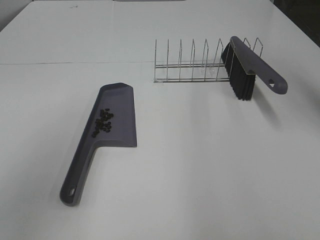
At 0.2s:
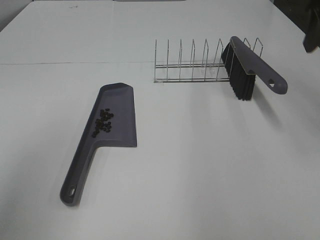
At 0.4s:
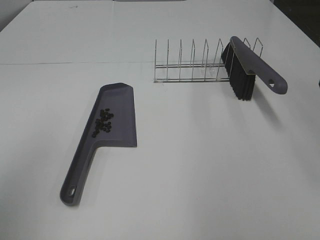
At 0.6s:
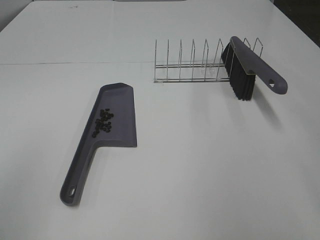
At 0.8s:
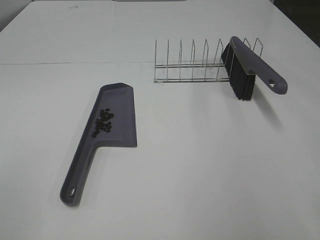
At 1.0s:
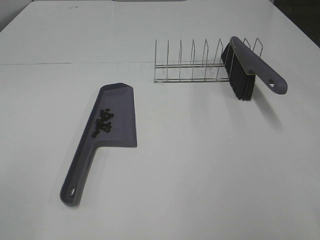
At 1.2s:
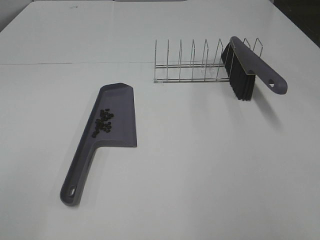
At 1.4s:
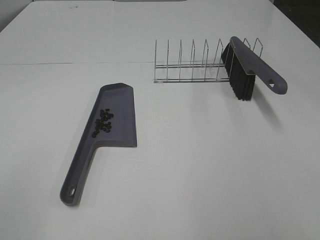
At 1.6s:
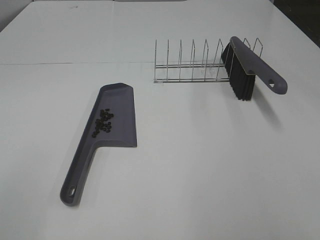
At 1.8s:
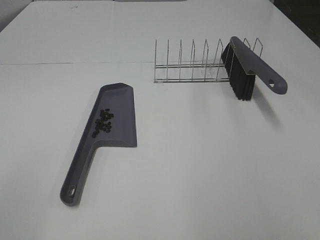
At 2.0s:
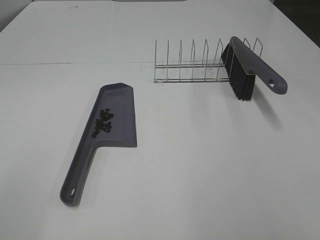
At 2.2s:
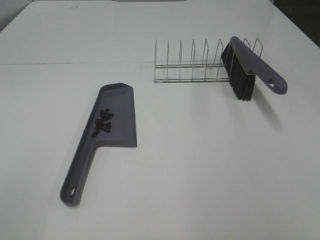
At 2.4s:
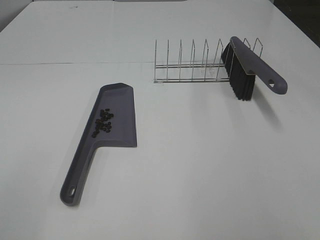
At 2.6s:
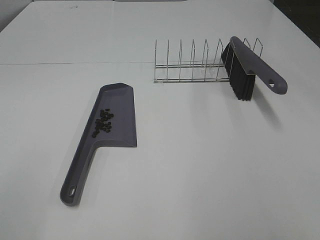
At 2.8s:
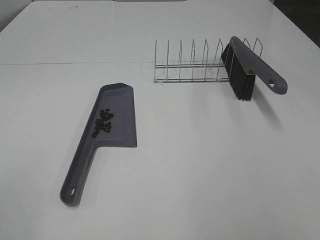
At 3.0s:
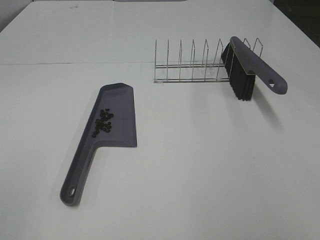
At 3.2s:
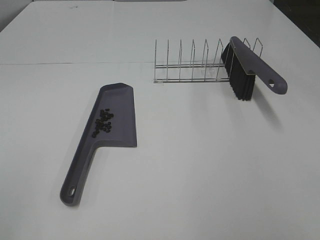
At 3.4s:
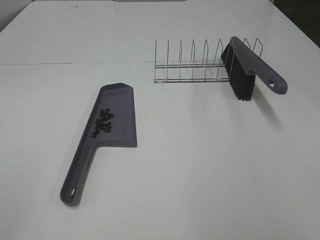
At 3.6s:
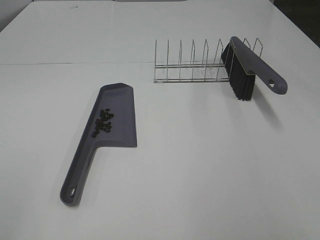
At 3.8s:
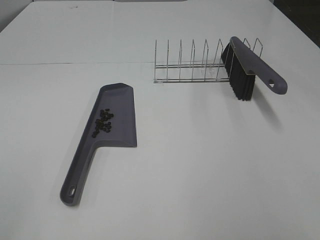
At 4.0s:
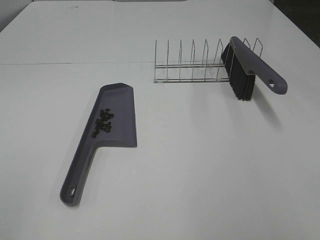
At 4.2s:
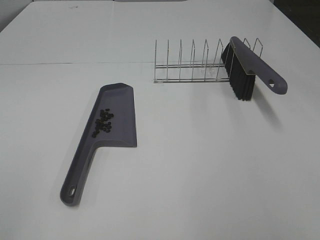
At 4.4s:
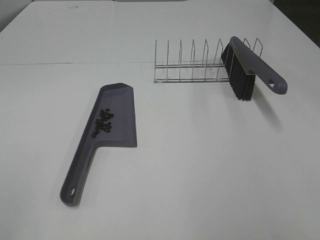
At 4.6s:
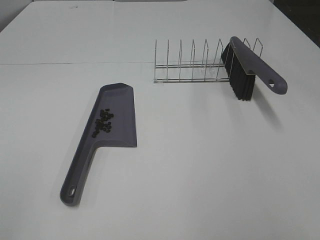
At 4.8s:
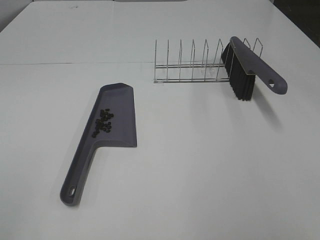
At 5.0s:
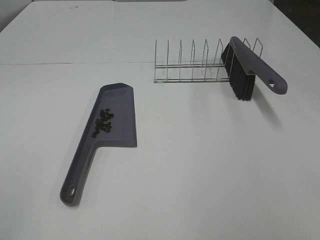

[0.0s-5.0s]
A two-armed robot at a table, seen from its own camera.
Task of the whole recording: Sweep Coffee Bean.
0.0s to 1.6s: The right gripper shifts roughly 35 cm backward. The left gripper is displaced backward and downward by roughly 15 cm.
3.4s to 5.0s: Both grippers stay about where they are.

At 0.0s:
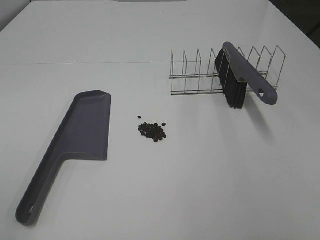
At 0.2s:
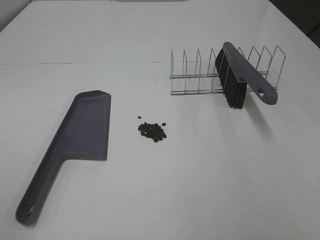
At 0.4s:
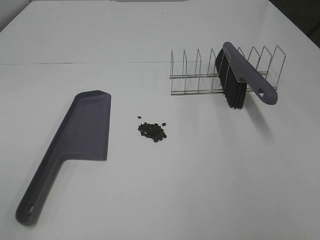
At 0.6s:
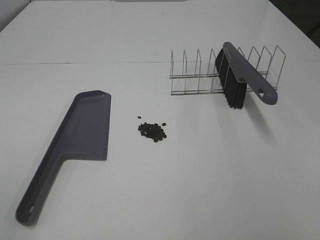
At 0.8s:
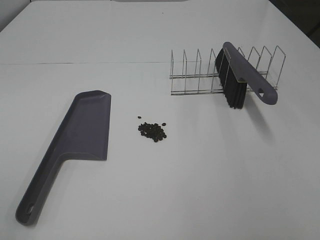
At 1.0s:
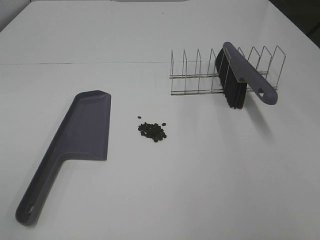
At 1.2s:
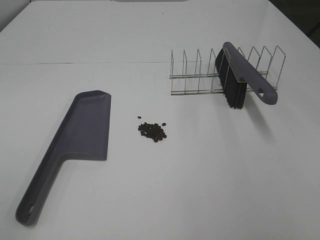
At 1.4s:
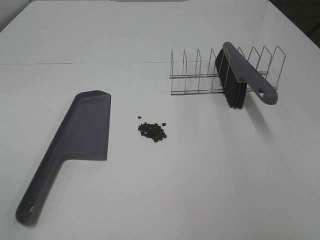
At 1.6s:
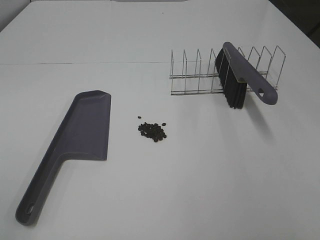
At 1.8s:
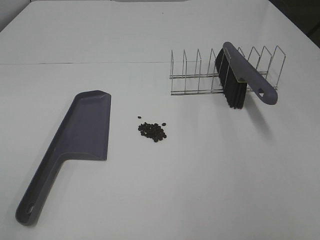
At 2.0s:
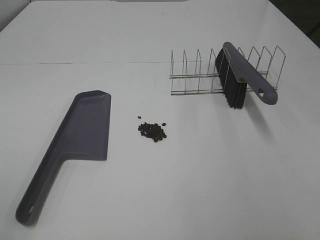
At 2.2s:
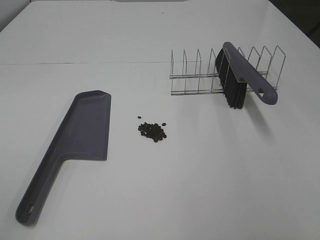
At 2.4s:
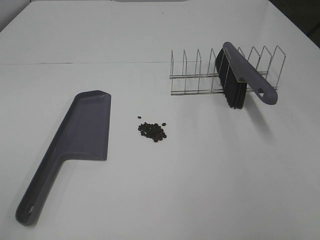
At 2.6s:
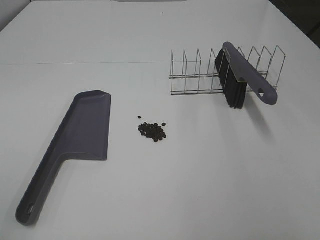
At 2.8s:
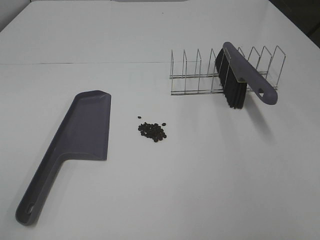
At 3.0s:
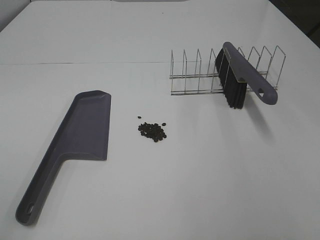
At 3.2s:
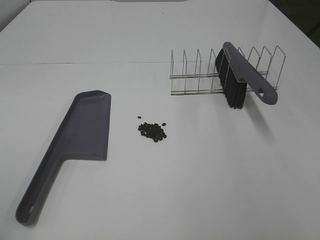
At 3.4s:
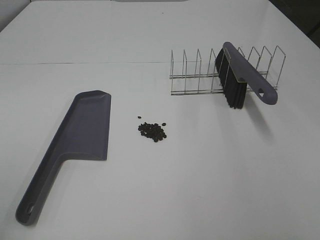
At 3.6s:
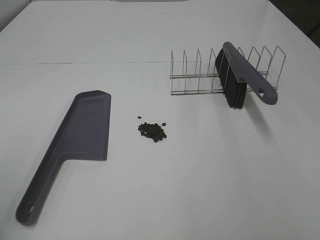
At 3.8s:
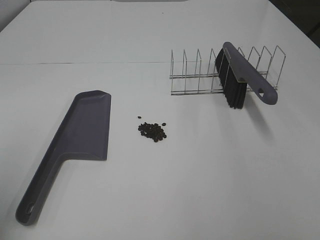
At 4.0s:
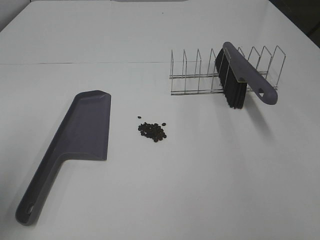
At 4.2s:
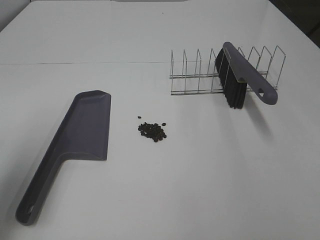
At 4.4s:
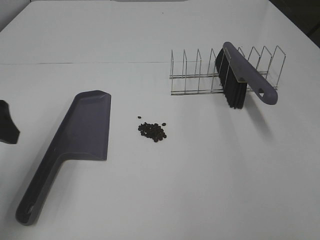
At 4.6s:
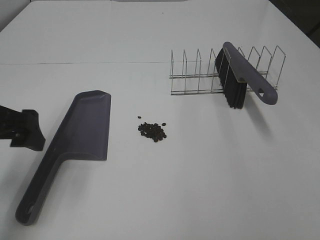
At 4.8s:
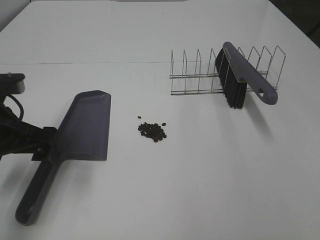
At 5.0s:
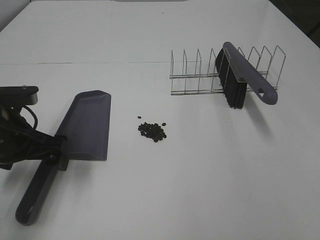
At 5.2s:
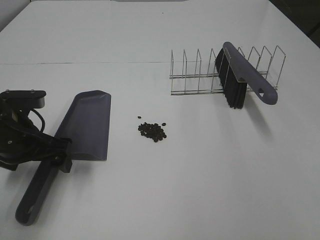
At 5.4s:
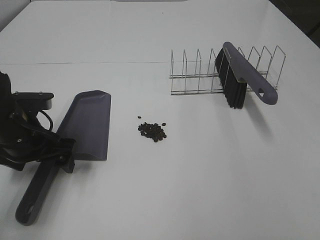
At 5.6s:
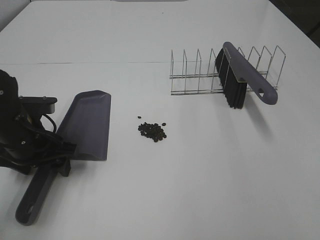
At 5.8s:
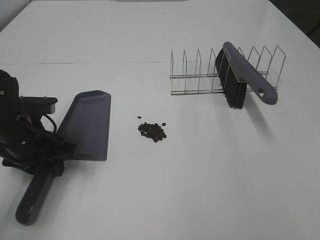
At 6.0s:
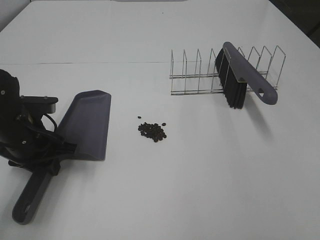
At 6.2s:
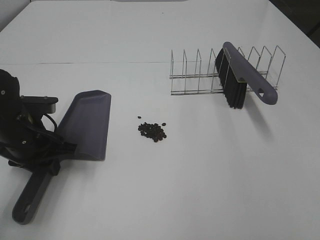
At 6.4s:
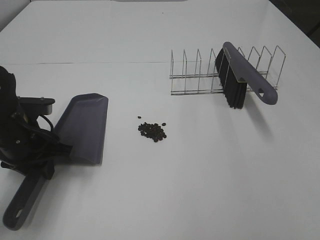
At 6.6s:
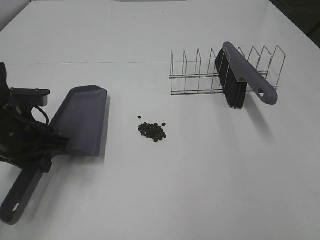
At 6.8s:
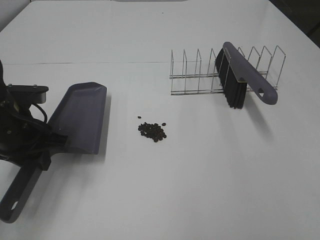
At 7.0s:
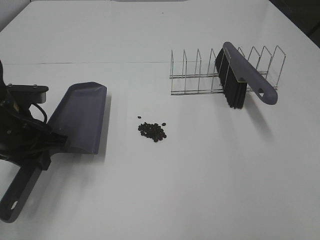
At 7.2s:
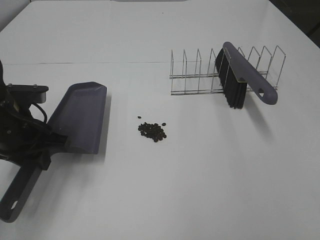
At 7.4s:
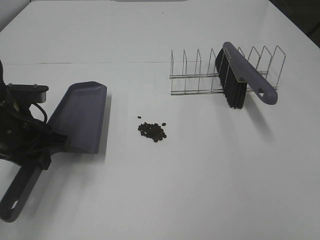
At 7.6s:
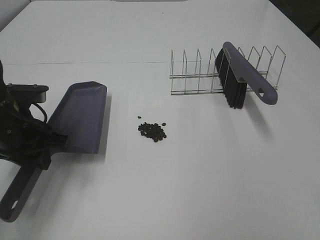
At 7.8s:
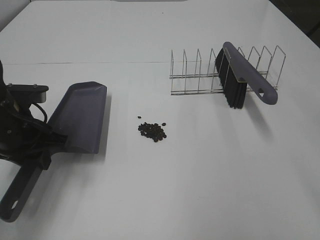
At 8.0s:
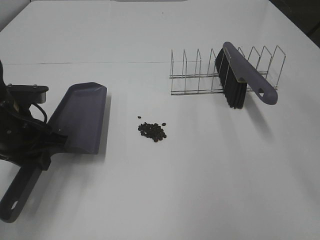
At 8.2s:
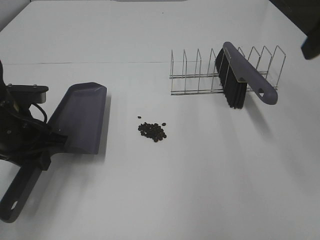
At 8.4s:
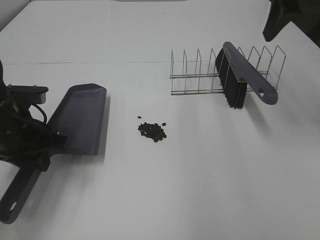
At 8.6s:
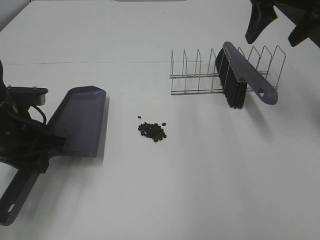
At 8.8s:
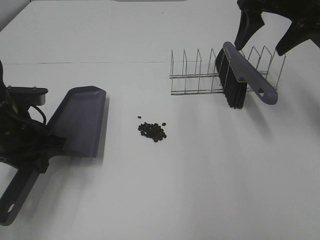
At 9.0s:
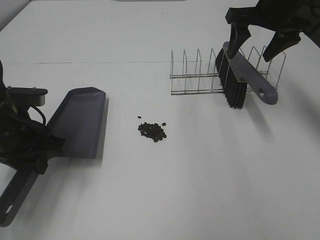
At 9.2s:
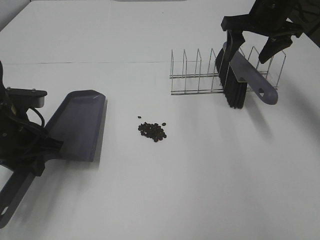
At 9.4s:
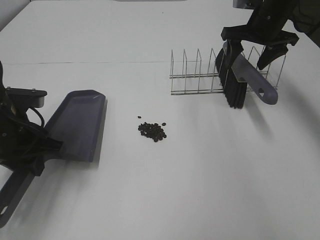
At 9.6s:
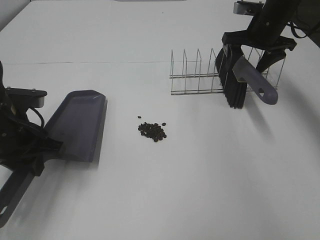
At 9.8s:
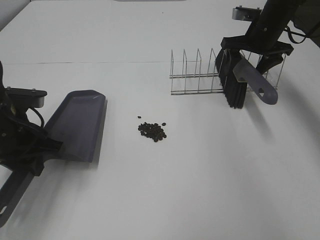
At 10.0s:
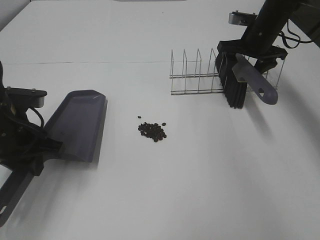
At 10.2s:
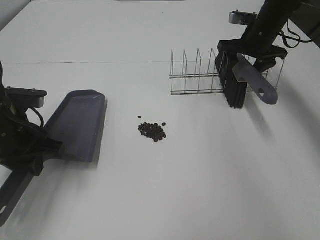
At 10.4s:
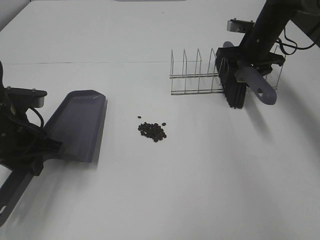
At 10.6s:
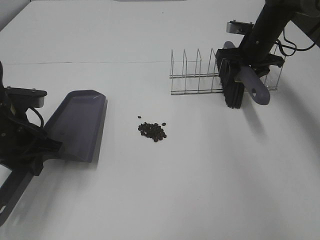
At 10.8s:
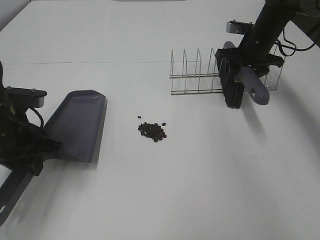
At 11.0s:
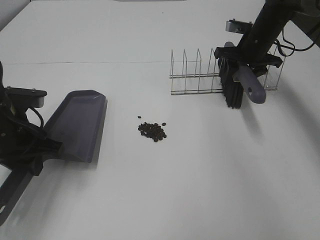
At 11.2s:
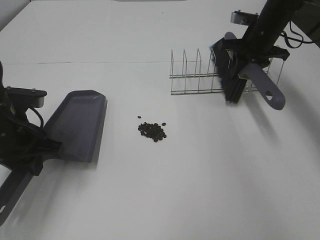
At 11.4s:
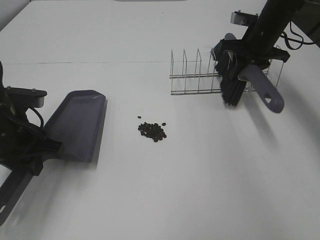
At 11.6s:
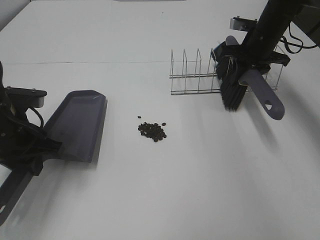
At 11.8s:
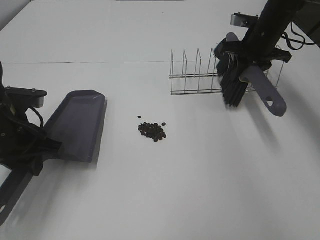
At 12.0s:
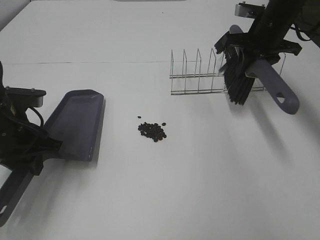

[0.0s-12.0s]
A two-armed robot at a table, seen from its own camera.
Task of the whole recording: Sweep Coffee Bean.
Step, 0.0s to 6.2s: Left hand: grab the dustpan.
Step, 7.0s to 10.6s: Right hand:grab the broom.
0.0s to 3.0s: Both grippers stay put.
3.0s to 4.4s: The left gripper travels forward by some 20 cm.
4.4s to 6.0s: The left gripper goes about 15 cm downward and forward, and closes.
7.6s to 9.0s: The right gripper heads forward, covering roughly 35 cm.
9.0s to 10.4s: The right gripper travels downward and forward by some 15 cm.
10.4s to 12.0s: The right gripper heads upward, covering approximately 5 cm, and closes its fingers.

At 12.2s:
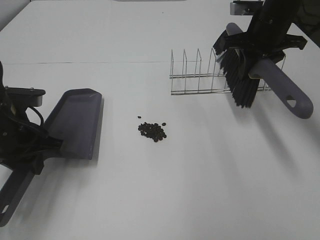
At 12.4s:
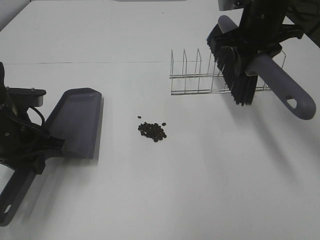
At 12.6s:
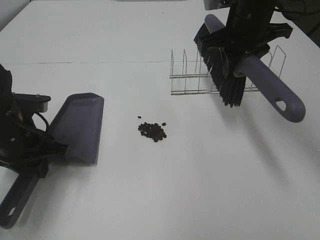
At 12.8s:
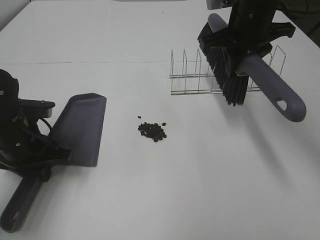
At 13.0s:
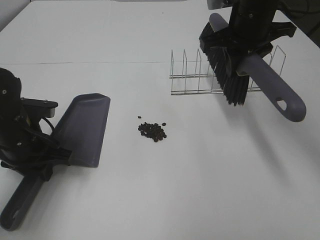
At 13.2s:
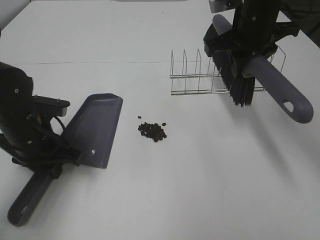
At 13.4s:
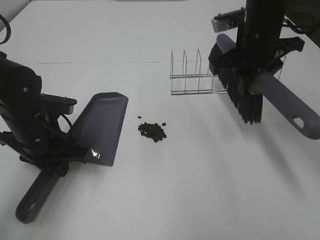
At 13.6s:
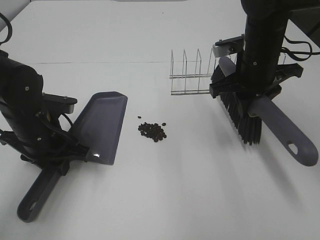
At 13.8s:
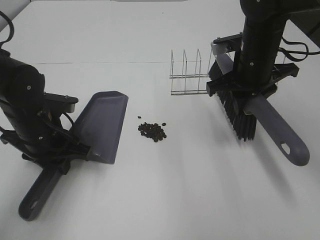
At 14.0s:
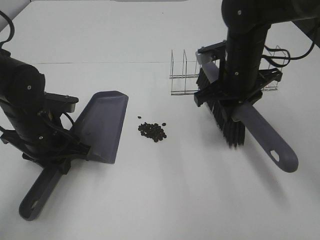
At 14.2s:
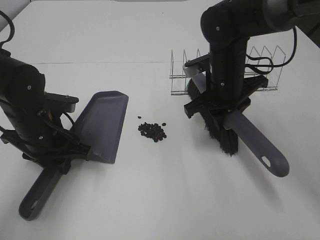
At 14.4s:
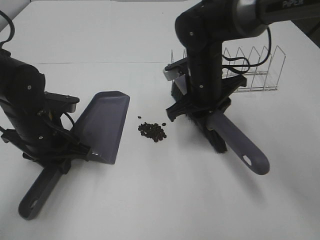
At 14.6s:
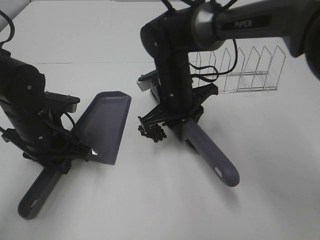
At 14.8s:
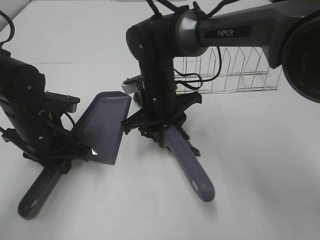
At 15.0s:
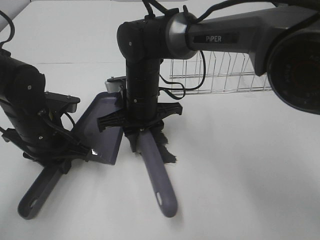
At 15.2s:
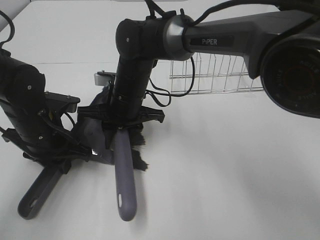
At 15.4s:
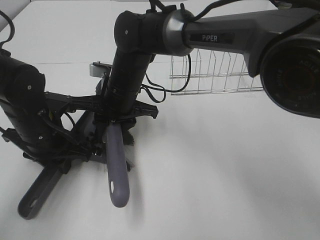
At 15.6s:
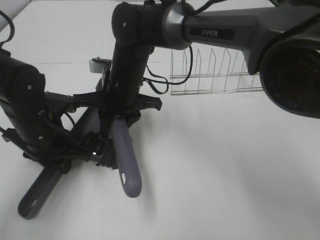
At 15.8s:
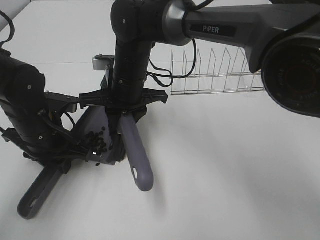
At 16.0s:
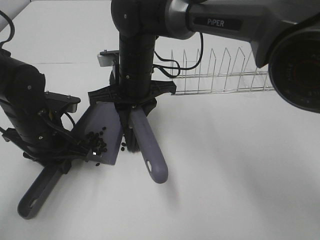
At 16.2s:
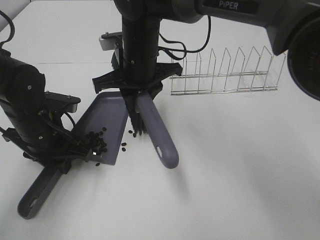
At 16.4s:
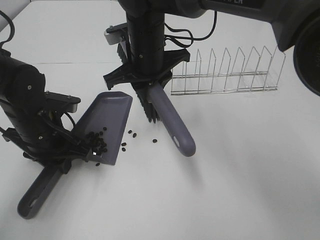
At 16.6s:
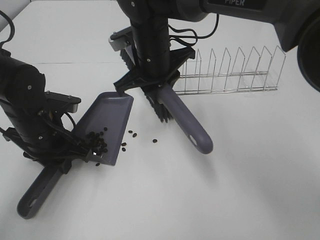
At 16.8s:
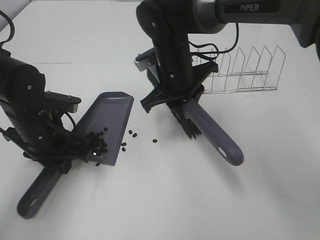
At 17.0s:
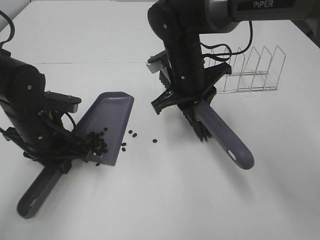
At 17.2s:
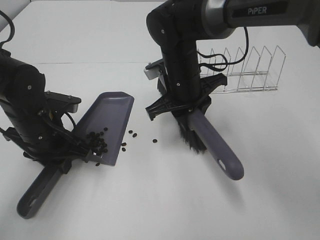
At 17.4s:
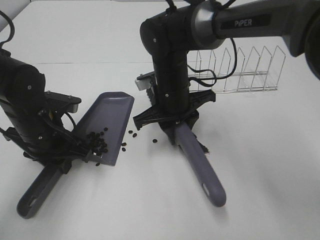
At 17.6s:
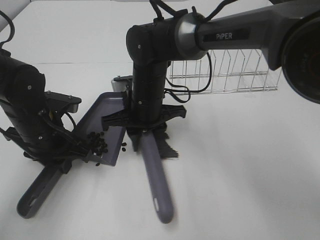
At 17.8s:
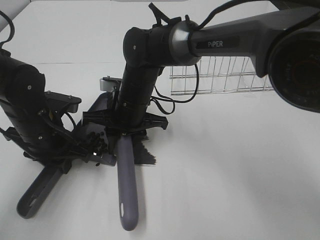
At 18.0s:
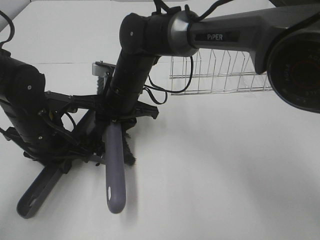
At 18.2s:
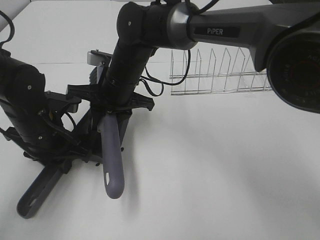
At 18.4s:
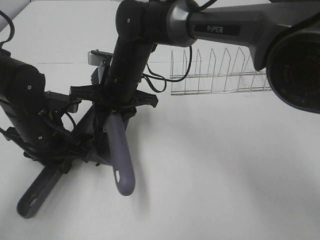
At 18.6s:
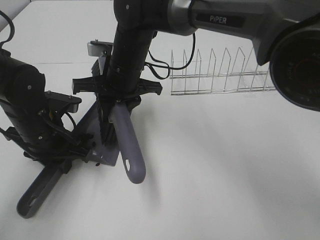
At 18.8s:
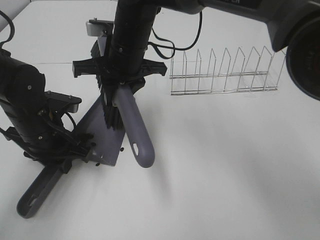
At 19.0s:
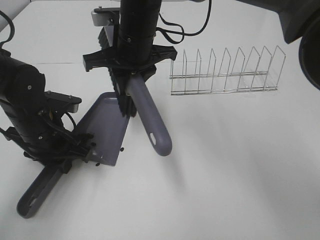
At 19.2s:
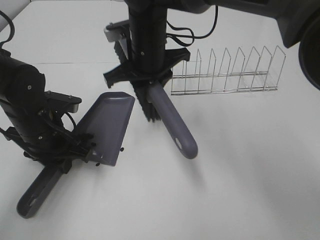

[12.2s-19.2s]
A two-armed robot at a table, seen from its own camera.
Task of the whole recording: Sweep Coffee Bean.
12.2s to 13.6s: The right gripper shifts about 5 cm backward. The left gripper moves about 5 cm.
13.6s to 15.0s: The right gripper travels to the left by some 20 cm.
15.0s to 16.4s: The right gripper is displaced upward by about 10 cm.
16.4s to 17.8s: The right gripper moves downward, some 10 cm.
17.8s to 19.2s: The right gripper moves upward, about 10 cm.
